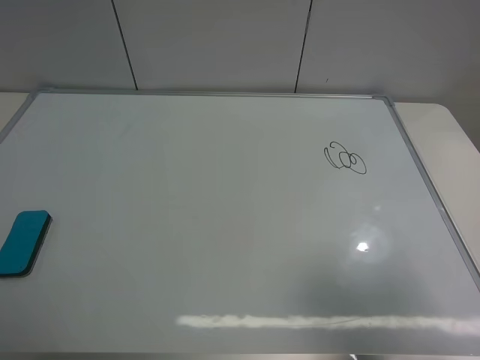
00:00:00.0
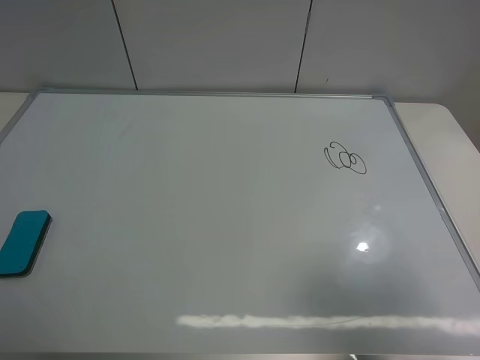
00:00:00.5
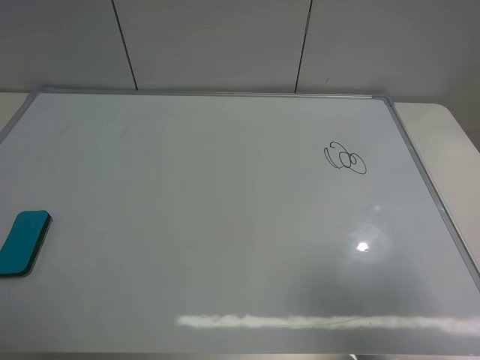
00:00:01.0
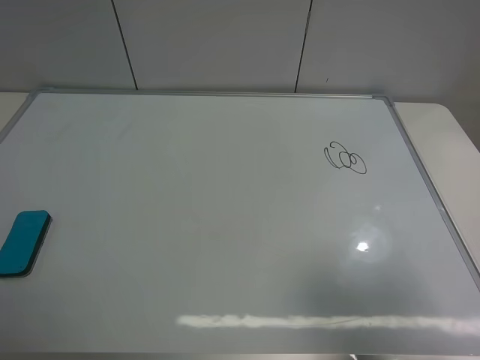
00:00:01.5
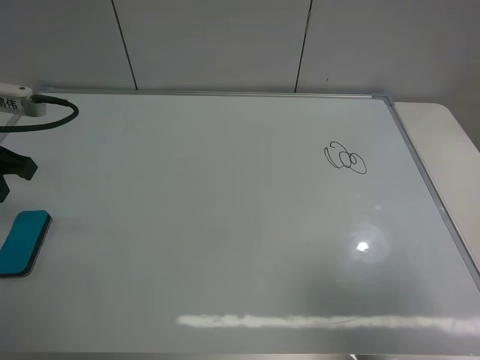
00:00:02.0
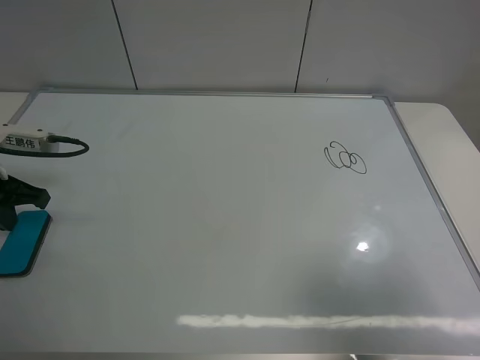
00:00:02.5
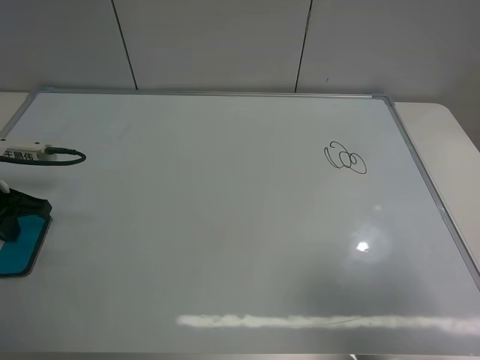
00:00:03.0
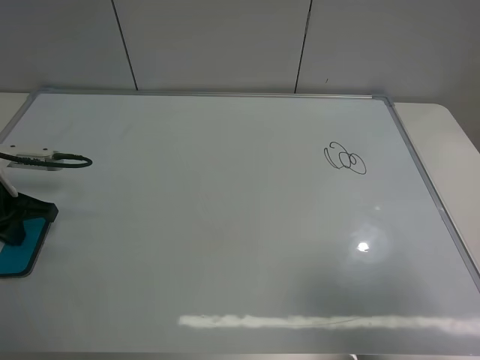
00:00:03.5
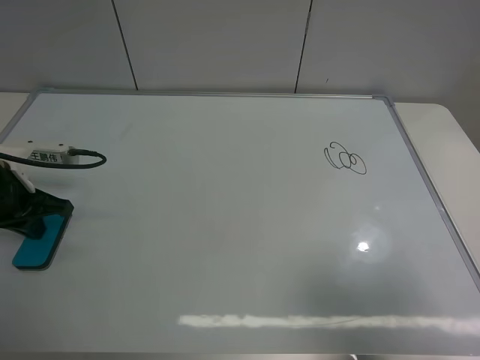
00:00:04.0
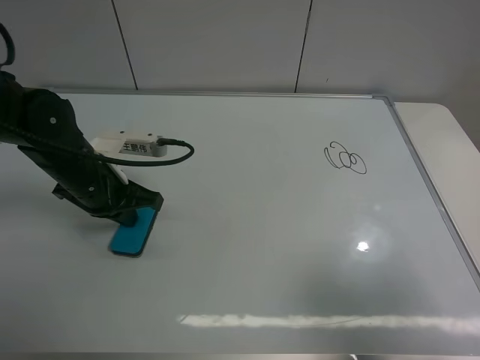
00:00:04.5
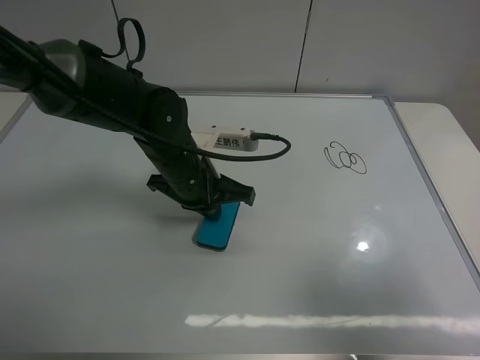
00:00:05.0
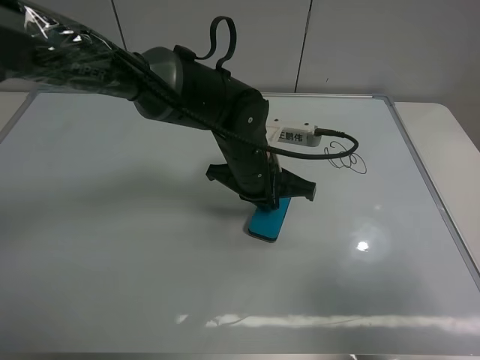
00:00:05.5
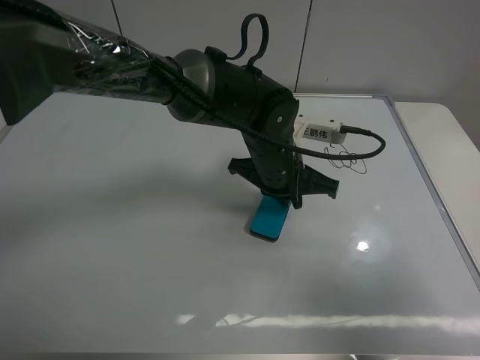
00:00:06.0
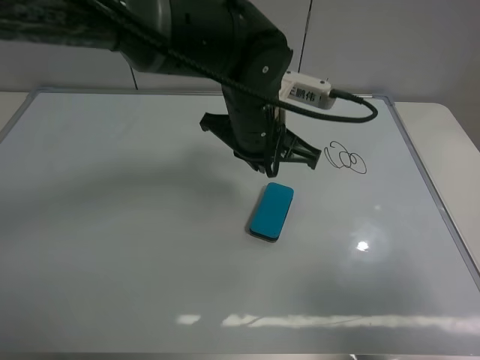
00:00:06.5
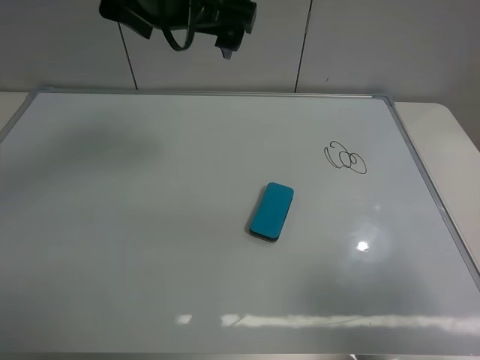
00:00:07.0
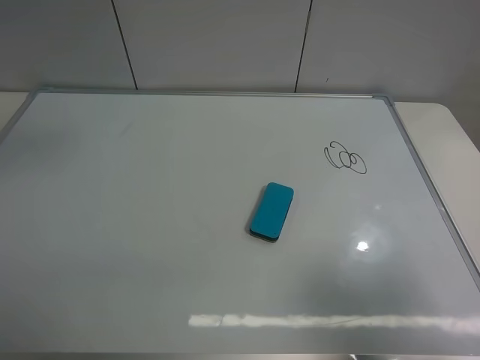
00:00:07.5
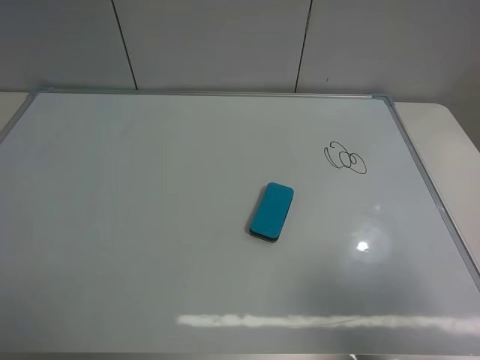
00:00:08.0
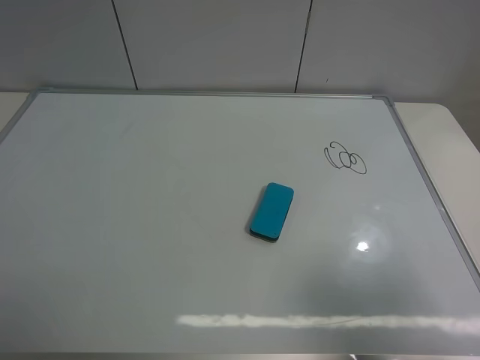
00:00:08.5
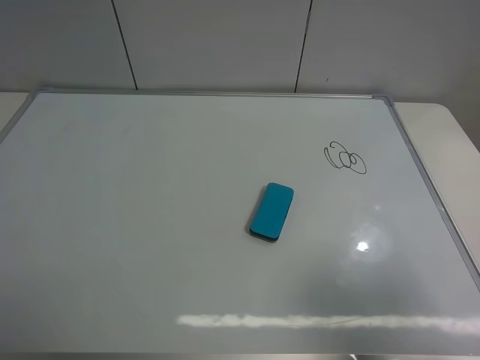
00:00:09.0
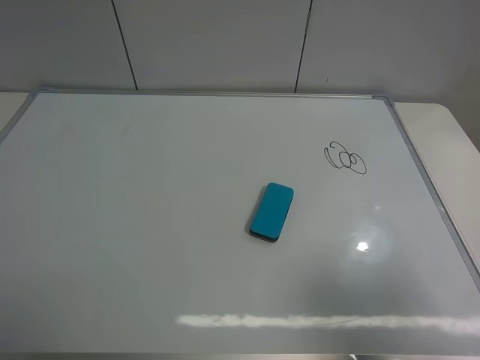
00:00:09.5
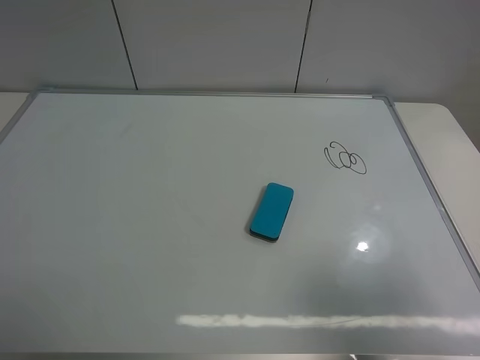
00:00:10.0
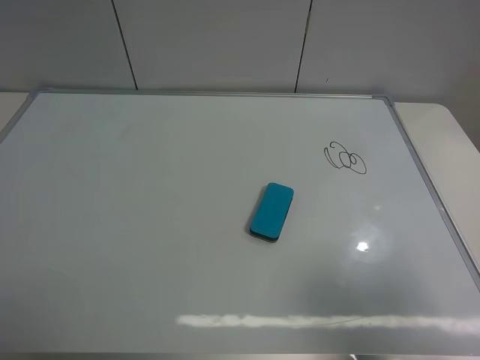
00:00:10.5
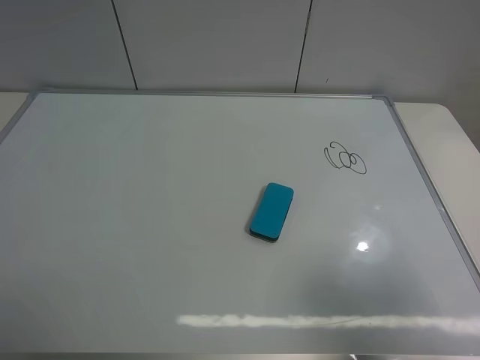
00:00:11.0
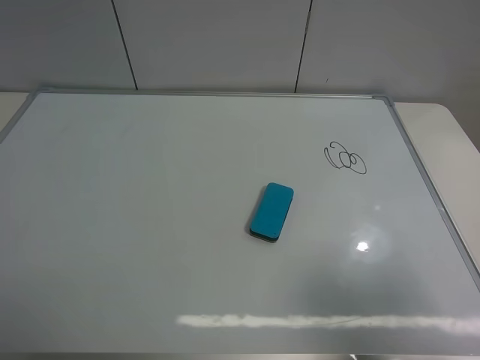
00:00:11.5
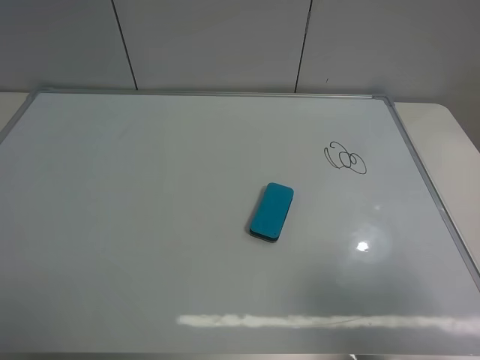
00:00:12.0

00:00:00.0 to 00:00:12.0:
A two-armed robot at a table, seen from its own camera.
Task of the whole recording: use the left gripper to place the eraser in the right, use the right gripper to pick up the eraser, wipe the notes on the whiteboard clean, and then put it down.
Step, 00:00:00.0 to 00:00:06.0: Move the board eraser to the right of the whiteboard with left gripper.
00:00:00.0 to 00:00:02.0: The left gripper heads forward, covering some 25 cm, and closes up.
00:00:02.0 to 00:00:04.0: The left gripper travels downward by approximately 10 cm.
00:00:04.0 to 00:00:06.0: The left gripper travels to the right by roughly 35 cm.
00:00:06.0 to 00:00:08.0: The left gripper is displaced upward, to the left and backward by approximately 60 cm, and opens up.
00:00:10.0 to 00:00:12.0: Both grippers stay about where they are.

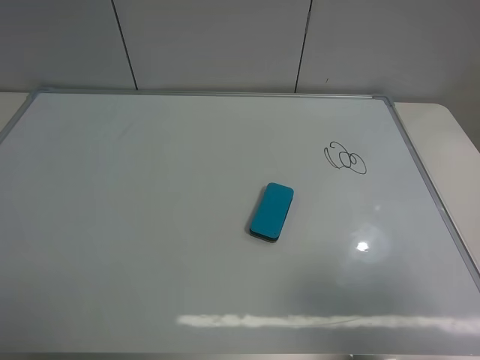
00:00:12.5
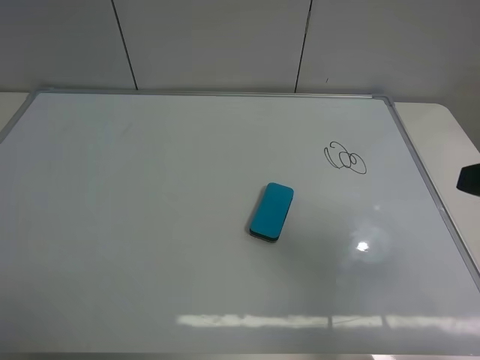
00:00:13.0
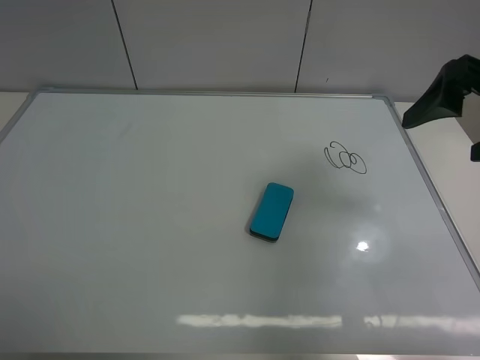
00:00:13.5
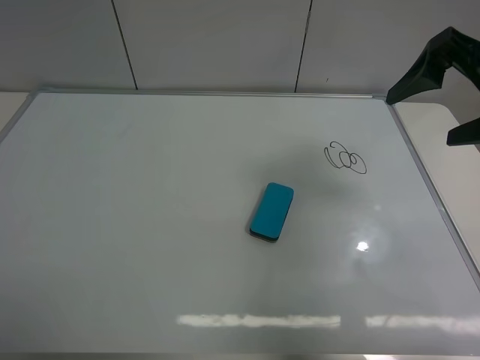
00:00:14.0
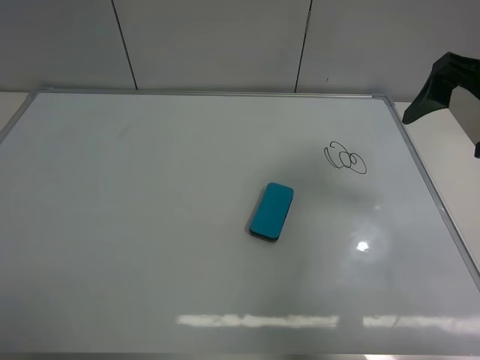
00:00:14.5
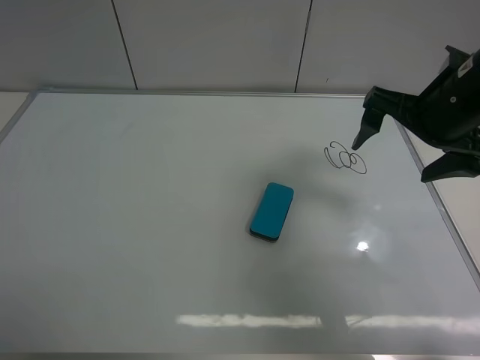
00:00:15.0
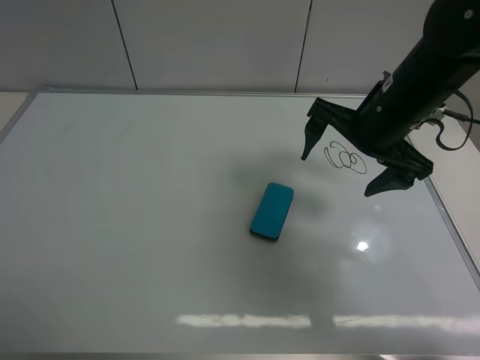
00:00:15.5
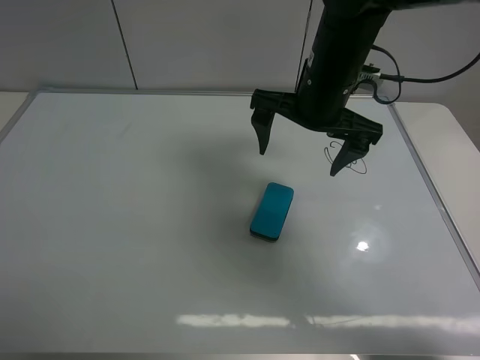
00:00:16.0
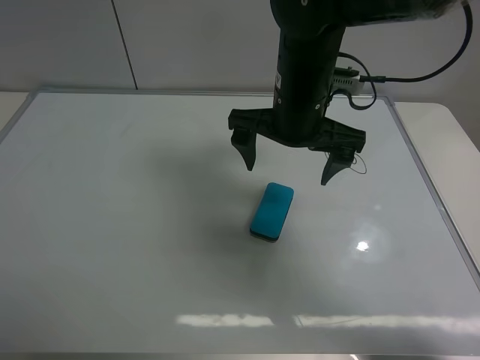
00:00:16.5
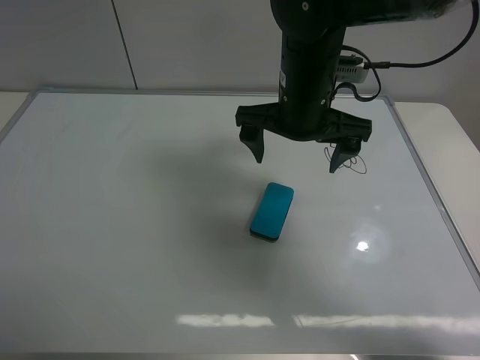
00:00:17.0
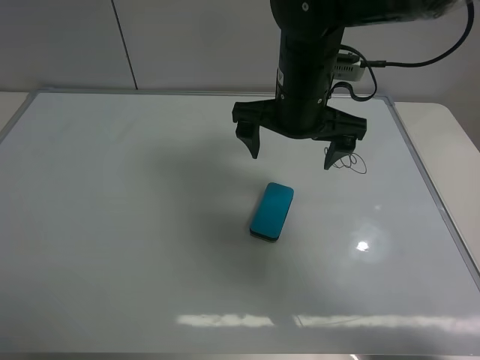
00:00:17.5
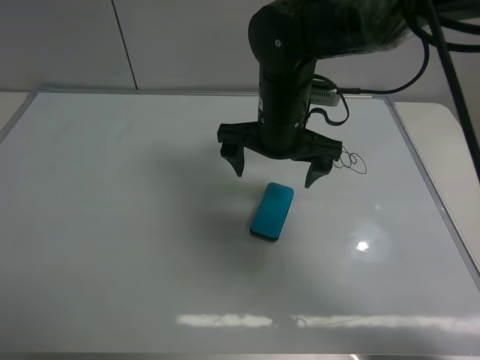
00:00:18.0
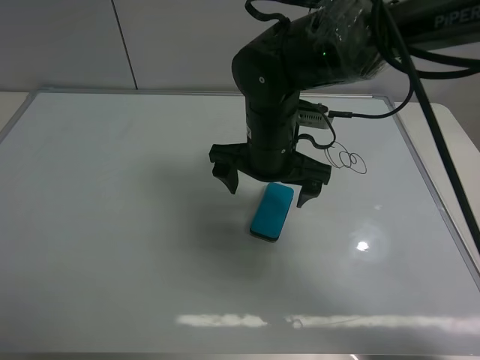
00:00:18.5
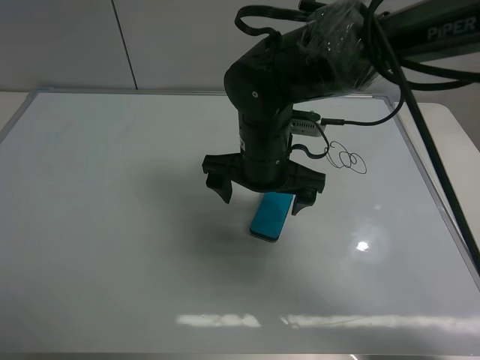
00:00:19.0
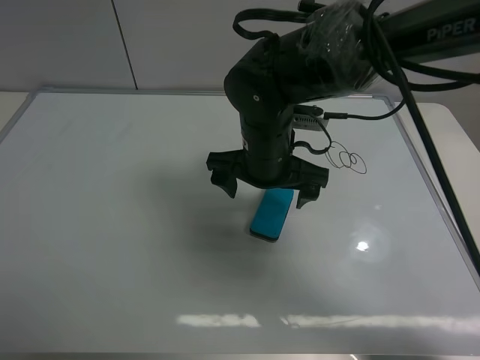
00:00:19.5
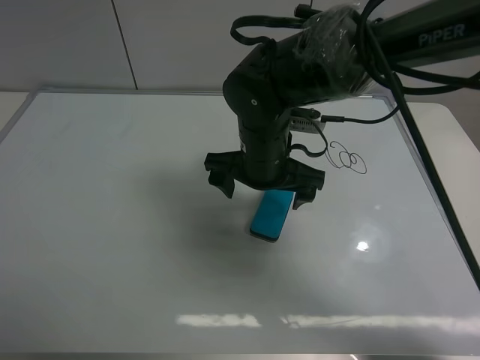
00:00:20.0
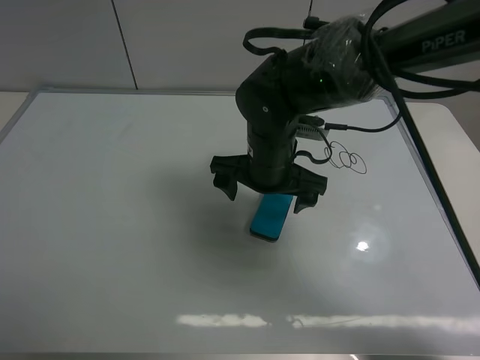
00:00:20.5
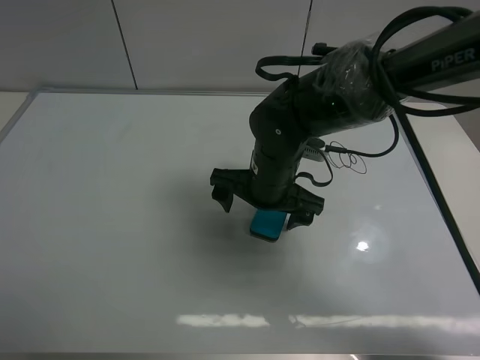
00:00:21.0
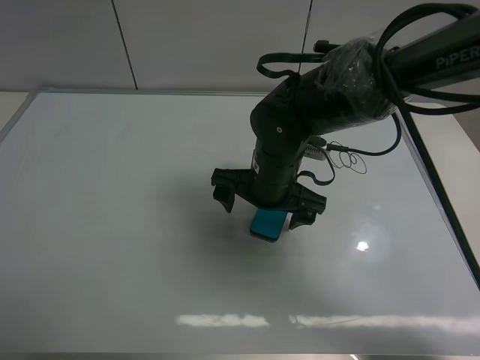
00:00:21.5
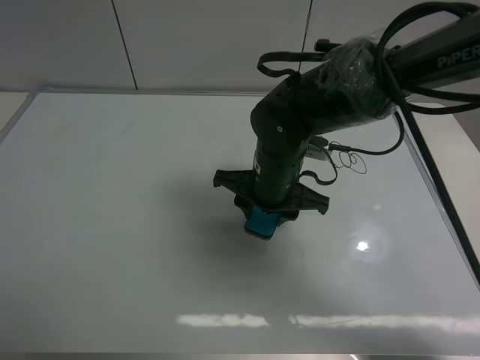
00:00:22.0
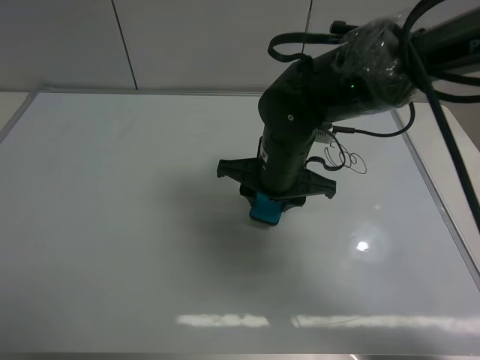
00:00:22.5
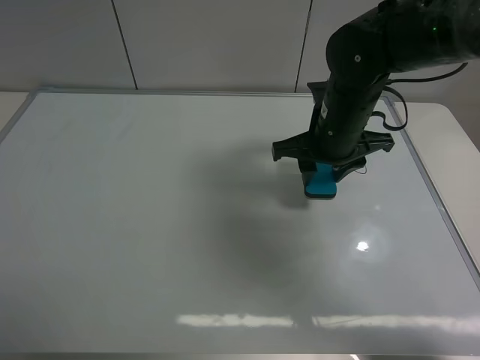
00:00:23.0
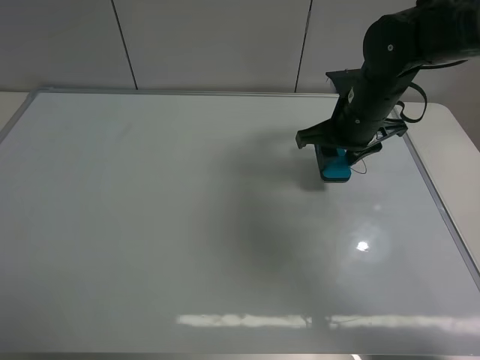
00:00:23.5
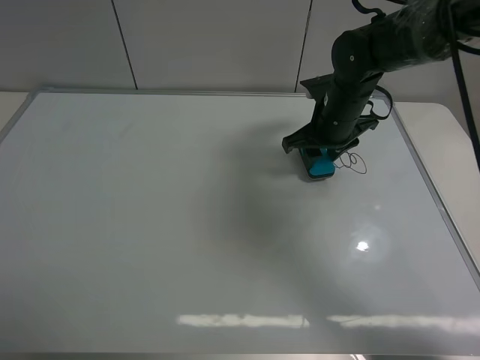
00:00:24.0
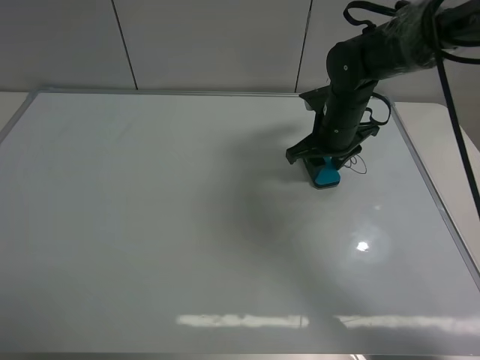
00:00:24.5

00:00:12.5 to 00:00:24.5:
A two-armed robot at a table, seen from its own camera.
Task of the whole recording: use the left gripper to place the eraser in the right, use the right gripper to pick up the eraser, wipe the notes on the whiteboard clean, and then put it down.
Step, 00:00:12.5 to 00:00:22.0: Pick up the board eraser with right gripper.
00:00:12.5 to 00:00:14.5: The right gripper shifts roughly 25 cm forward.
00:00:14.5 to 00:00:16.5: The right gripper travels to the left by approximately 20 cm.
00:00:16.5 to 00:00:18.5: The right gripper is displaced downward by roughly 5 cm.
00:00:18.5 to 00:00:20.5: The grippers move only a little.
00:00:20.5 to 00:00:22.5: The right gripper closes its fingers.
00:00:22.5 to 00:00:24.5: The right gripper shifts about 15 cm forward and to the right.

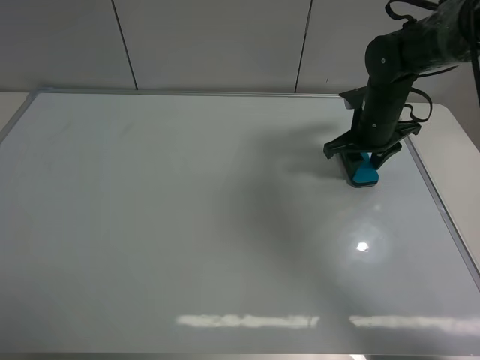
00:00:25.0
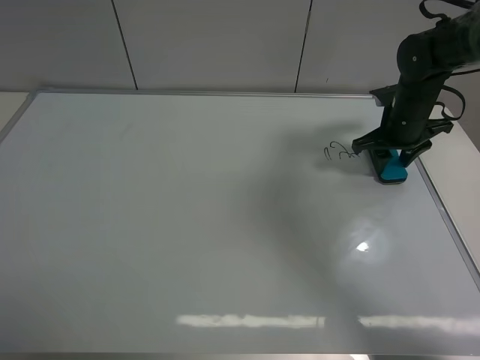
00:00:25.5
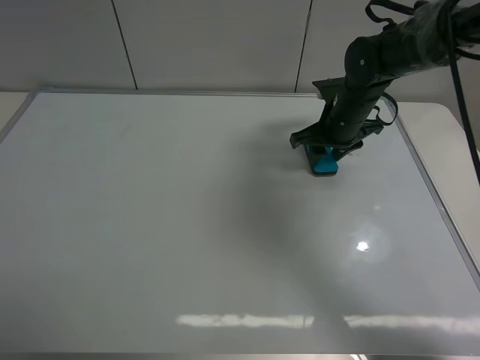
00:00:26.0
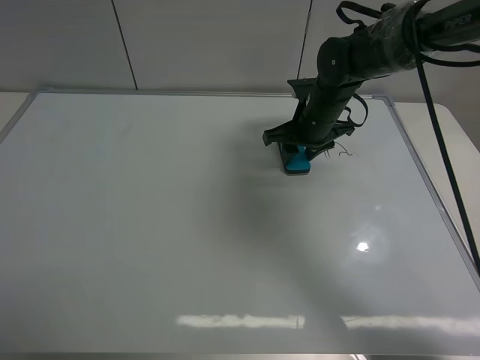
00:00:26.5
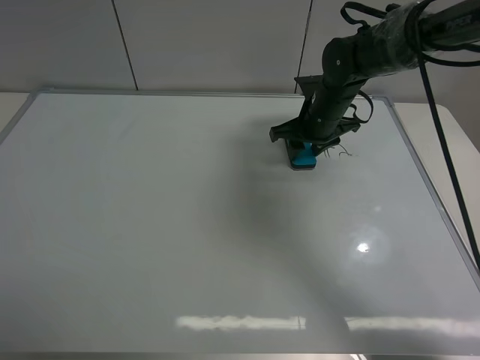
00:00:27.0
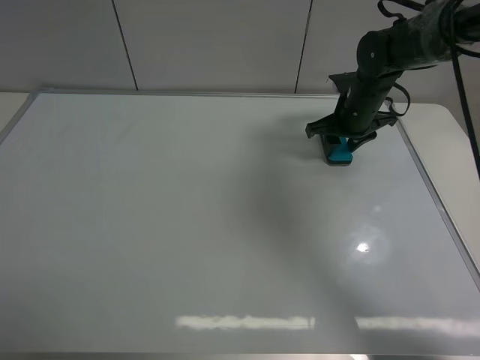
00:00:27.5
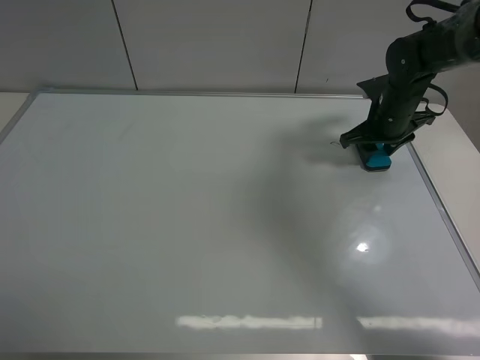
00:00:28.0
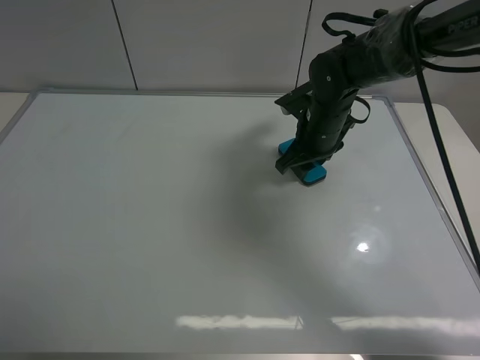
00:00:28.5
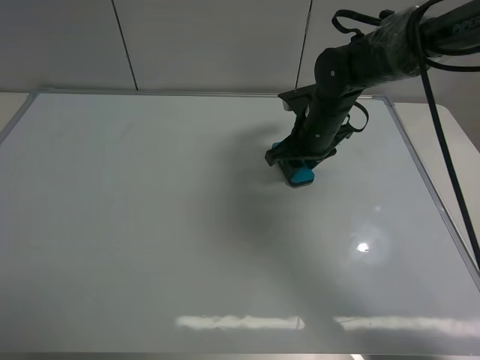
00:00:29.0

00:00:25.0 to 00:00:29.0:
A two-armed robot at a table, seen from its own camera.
Task of the whole recording: use the left gripper to place the eraser in the right, use the right gripper to pick up the eraser, wipe the notes on the whiteboard clean, and then put it down.
00:00:25.0 to 00:00:27.0: The right gripper travels to the left by some 10 cm.
00:00:27.0 to 00:00:29.0: The right gripper goes to the right and returns, some 10 cm each way.
